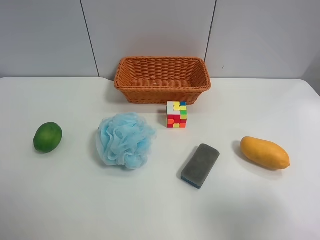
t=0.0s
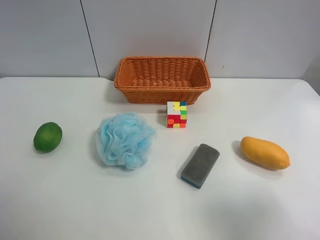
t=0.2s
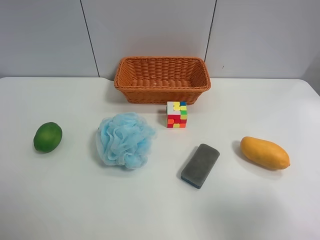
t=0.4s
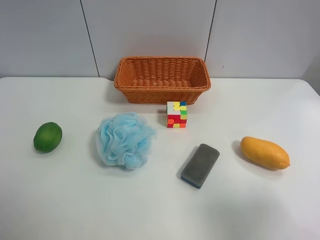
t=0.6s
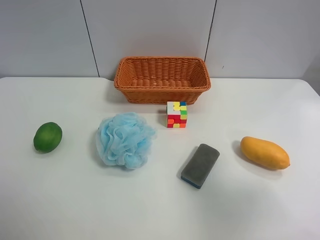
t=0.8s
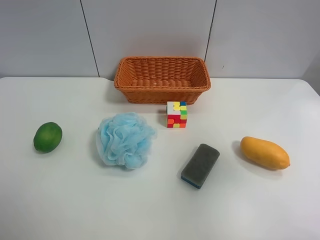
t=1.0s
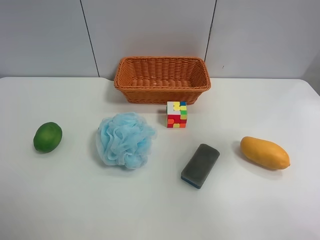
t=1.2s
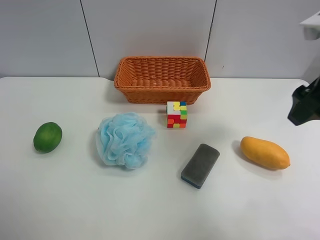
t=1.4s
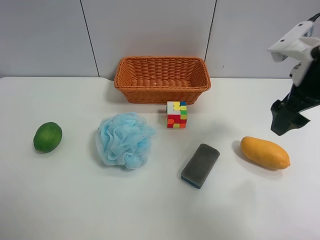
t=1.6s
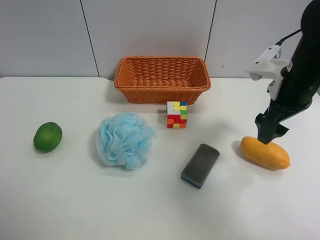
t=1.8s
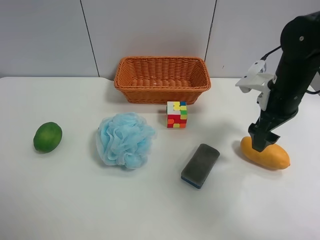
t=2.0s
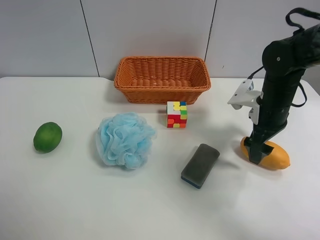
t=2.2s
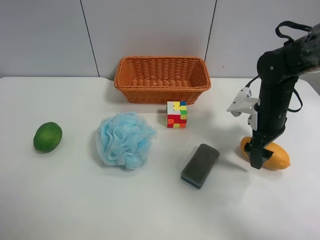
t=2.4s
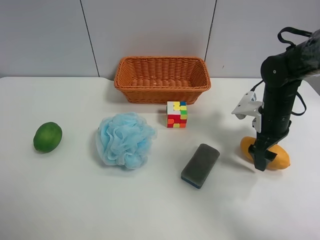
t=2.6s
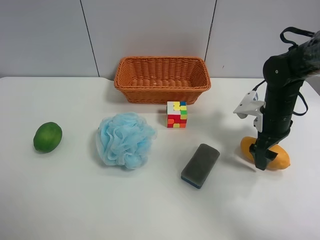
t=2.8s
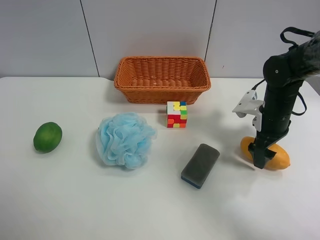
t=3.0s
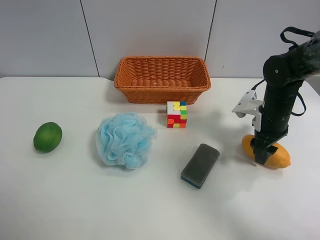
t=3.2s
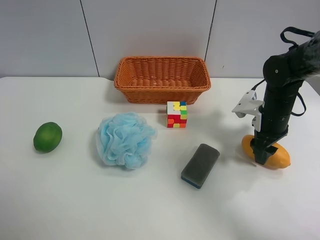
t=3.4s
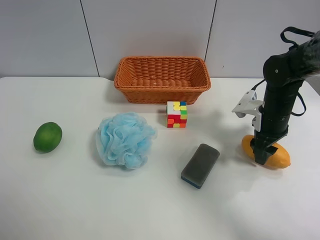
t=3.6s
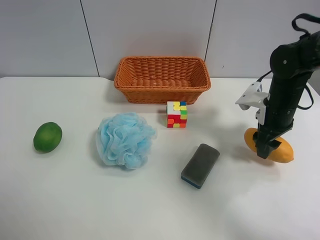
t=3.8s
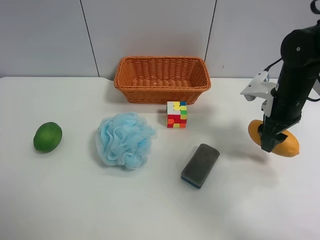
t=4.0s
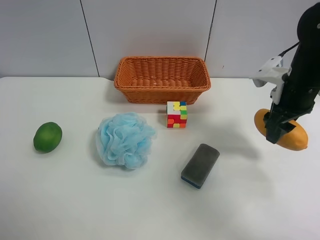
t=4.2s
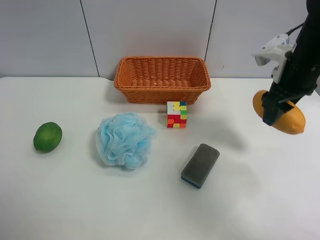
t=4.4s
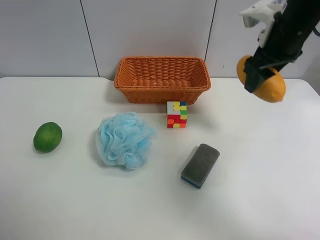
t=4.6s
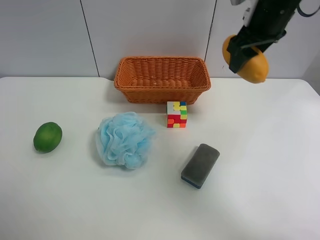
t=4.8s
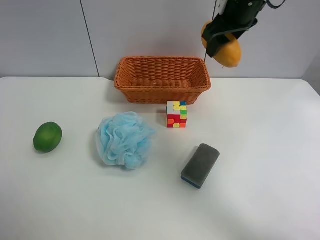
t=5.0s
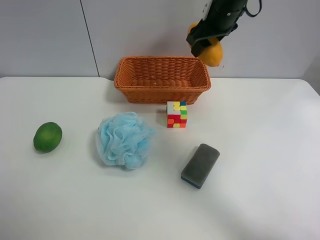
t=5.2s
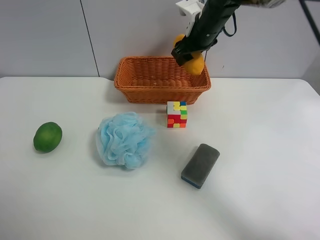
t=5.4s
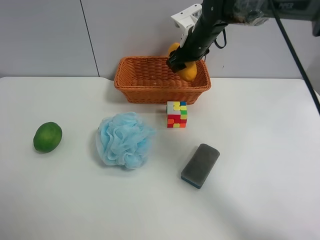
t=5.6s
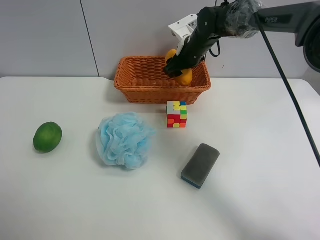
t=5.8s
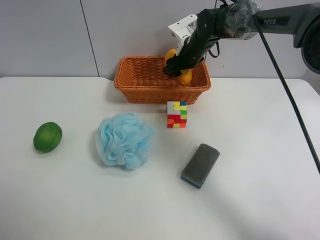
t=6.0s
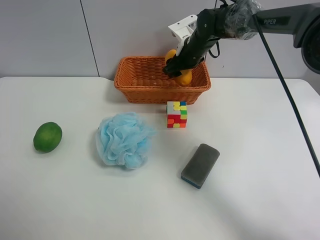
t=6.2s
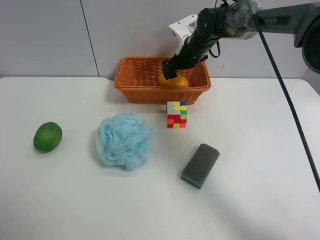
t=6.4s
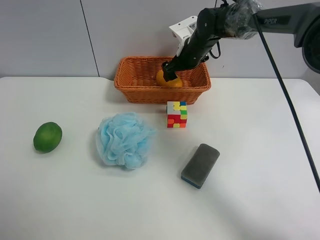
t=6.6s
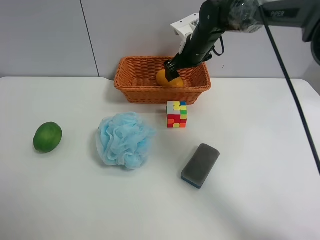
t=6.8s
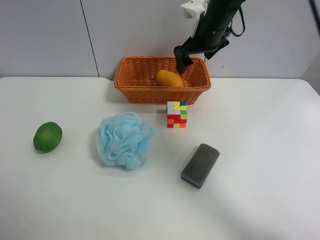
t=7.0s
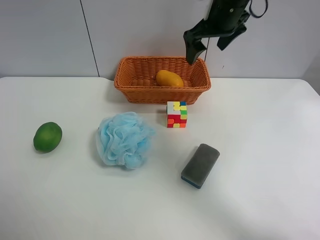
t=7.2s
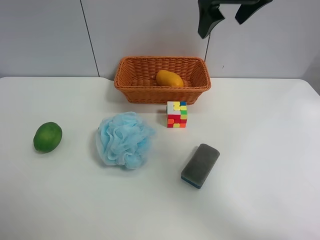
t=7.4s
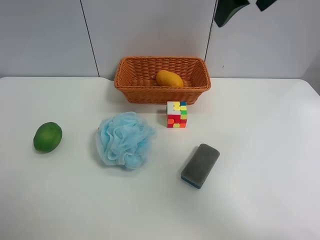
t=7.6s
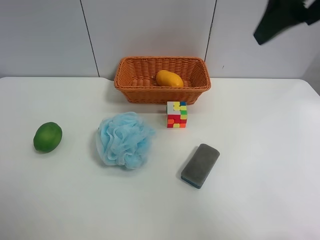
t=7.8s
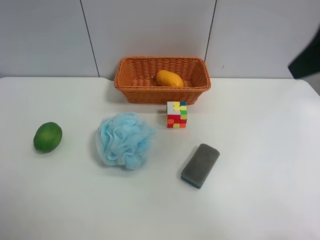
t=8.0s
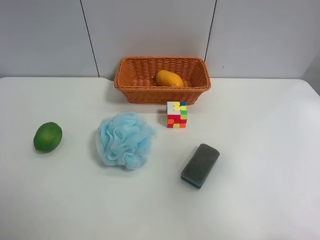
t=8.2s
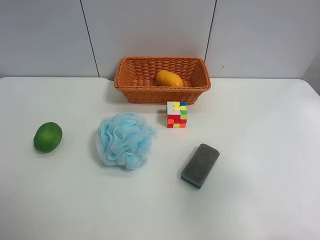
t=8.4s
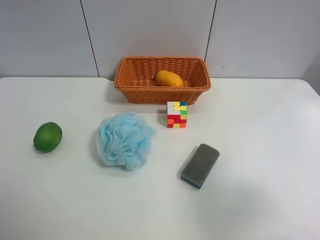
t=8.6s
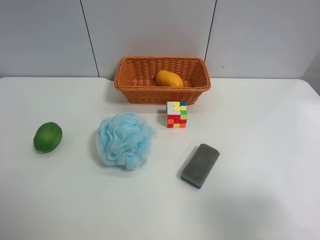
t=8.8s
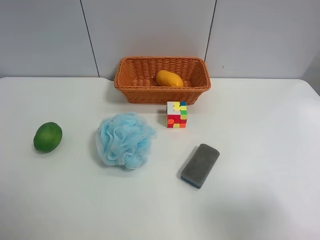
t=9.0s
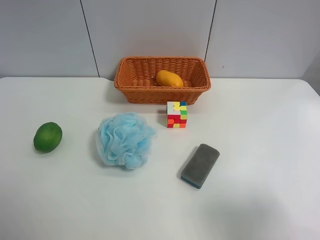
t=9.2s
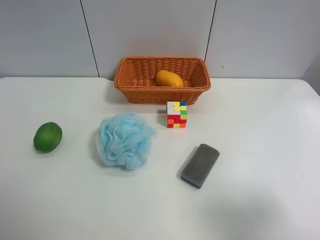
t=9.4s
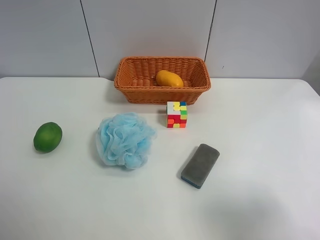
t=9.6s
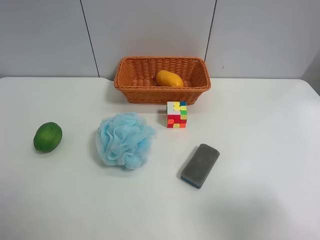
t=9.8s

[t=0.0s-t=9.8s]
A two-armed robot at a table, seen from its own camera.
Task of the whole recording: Randomly grab green lemon or mangoes from the table and put them in a basket.
Step, t=0.0s to t=3.2s: Grasp the mango with the right gripper.
Step, t=3.4s to t=7.0s: Place the mango into the basket with the right gripper.
t=0.0s to t=1.4s: The right gripper heads forward, covering roughly 25 cm.
t=1.4s to t=2.8s: The right gripper goes some 20 cm downward and forward.
t=2.8s to t=4.2s: The right gripper heads upward, covering some 10 cm, and closes its fingers.
t=4.2s to t=5.6s: The right gripper goes about 25 cm forward and to the left.
t=5.6s to t=7.0s: The right gripper moves upward, about 5 cm, and opens.
t=7.0s to t=8.4s: The right gripper heads backward, covering about 40 cm.
t=8.4s to t=9.8s: The right gripper shifts some 5 cm downward.
